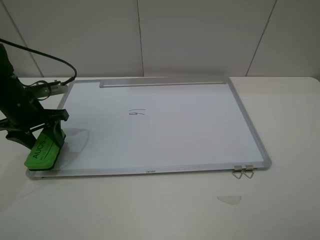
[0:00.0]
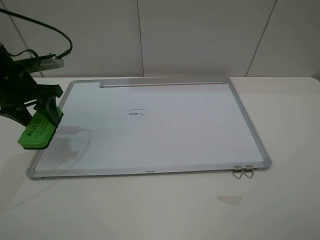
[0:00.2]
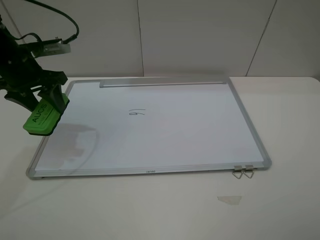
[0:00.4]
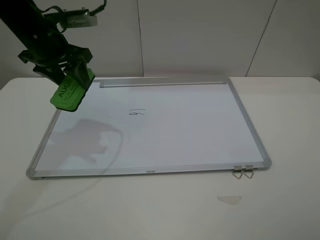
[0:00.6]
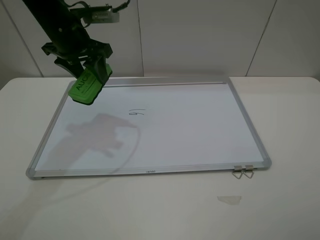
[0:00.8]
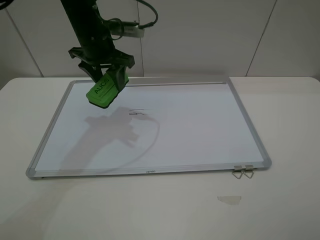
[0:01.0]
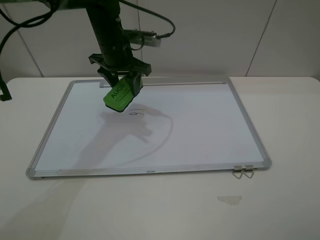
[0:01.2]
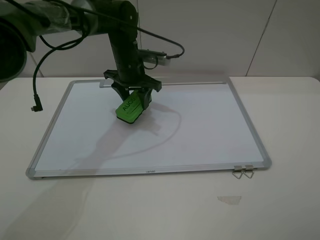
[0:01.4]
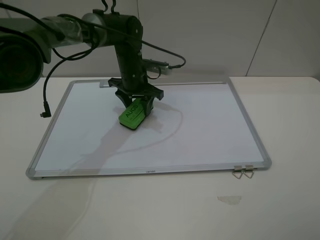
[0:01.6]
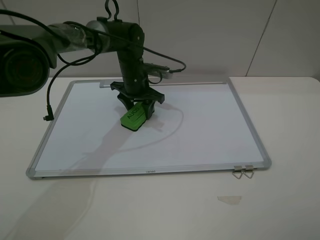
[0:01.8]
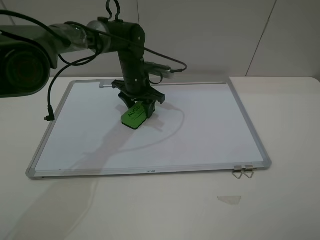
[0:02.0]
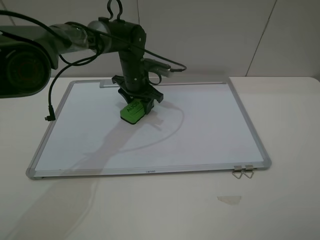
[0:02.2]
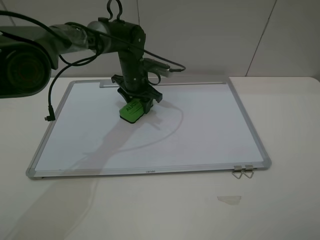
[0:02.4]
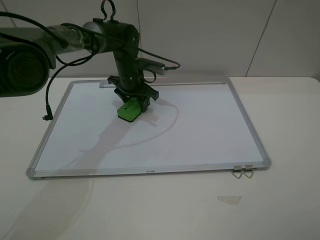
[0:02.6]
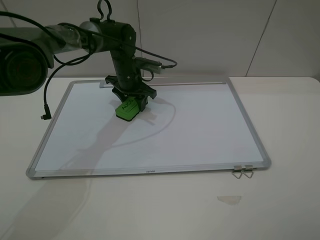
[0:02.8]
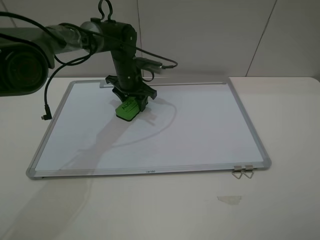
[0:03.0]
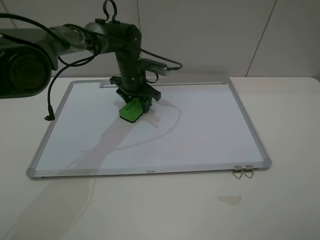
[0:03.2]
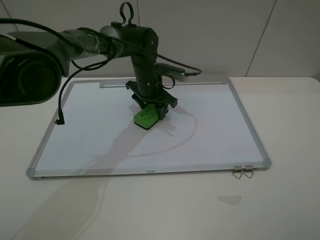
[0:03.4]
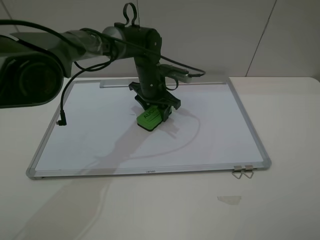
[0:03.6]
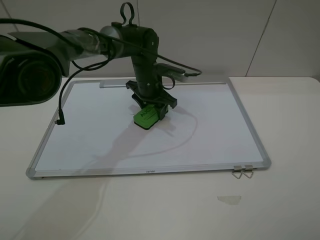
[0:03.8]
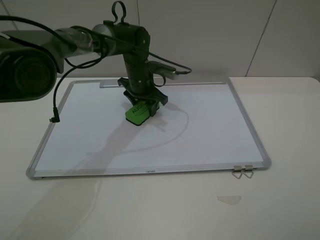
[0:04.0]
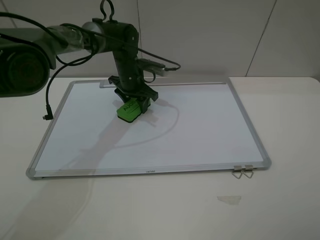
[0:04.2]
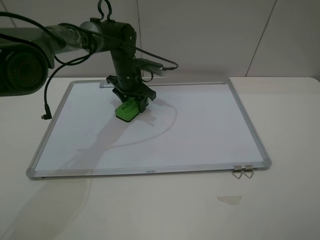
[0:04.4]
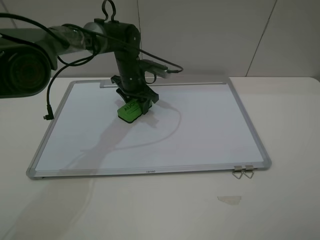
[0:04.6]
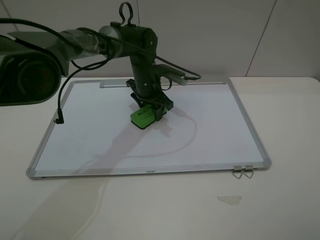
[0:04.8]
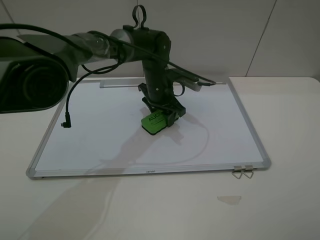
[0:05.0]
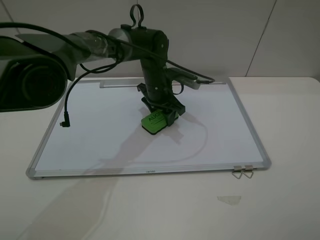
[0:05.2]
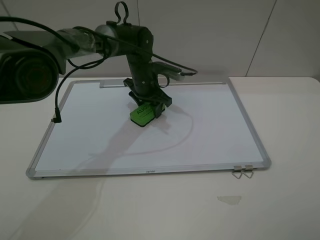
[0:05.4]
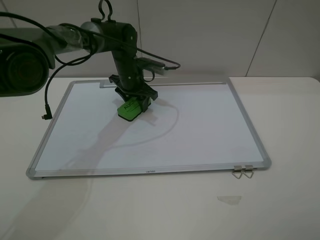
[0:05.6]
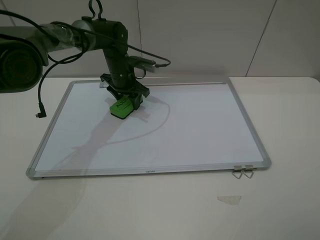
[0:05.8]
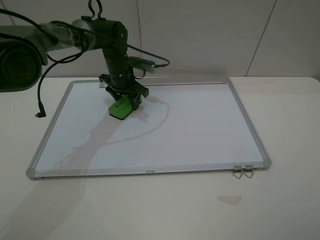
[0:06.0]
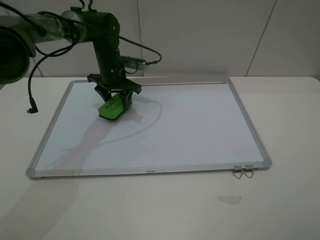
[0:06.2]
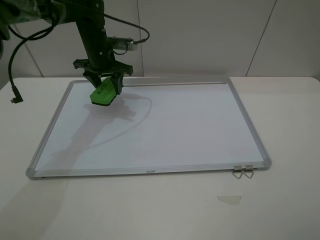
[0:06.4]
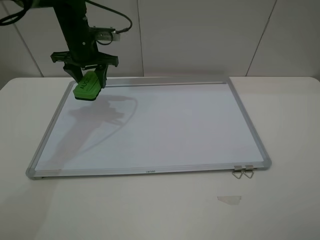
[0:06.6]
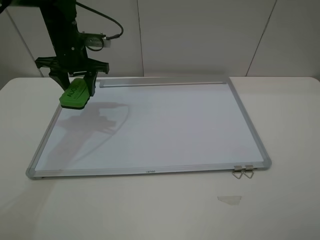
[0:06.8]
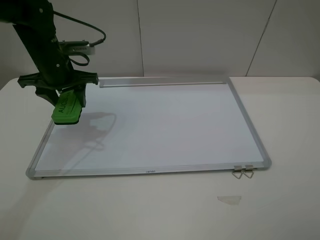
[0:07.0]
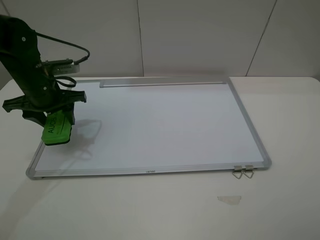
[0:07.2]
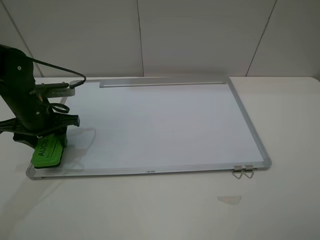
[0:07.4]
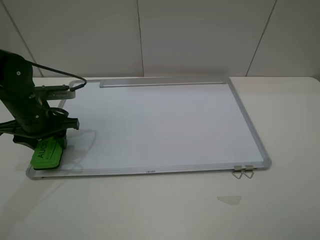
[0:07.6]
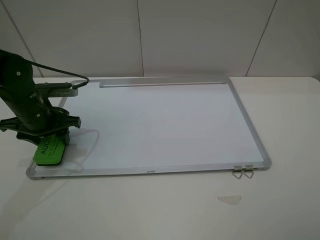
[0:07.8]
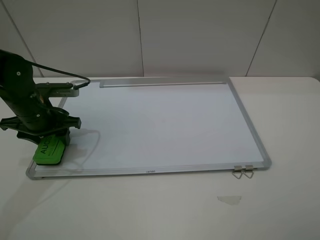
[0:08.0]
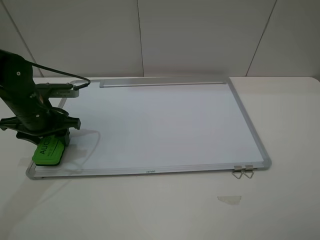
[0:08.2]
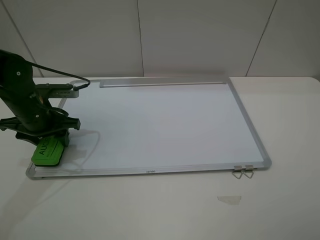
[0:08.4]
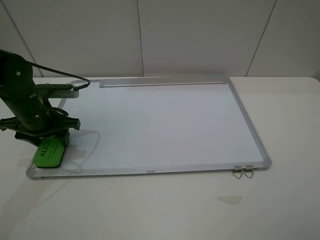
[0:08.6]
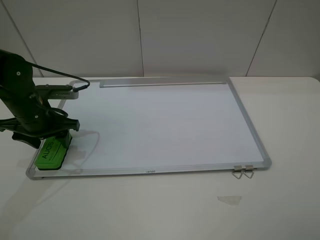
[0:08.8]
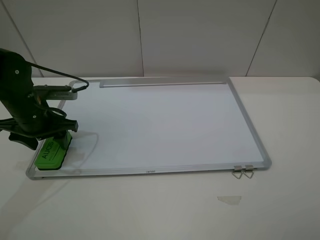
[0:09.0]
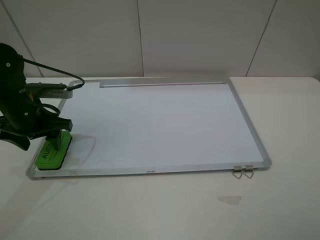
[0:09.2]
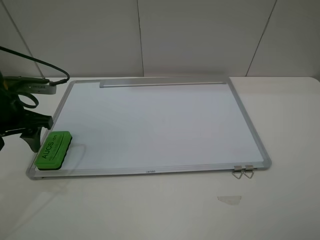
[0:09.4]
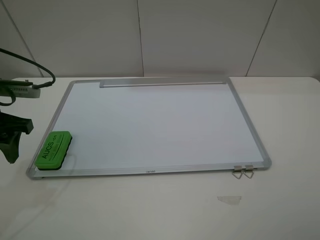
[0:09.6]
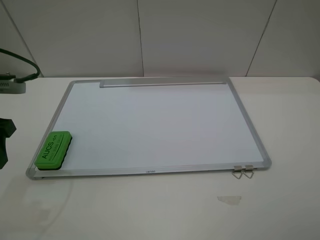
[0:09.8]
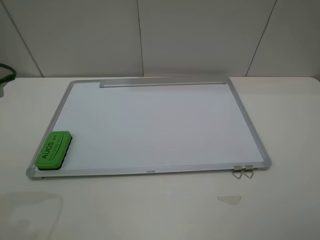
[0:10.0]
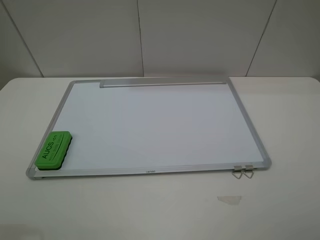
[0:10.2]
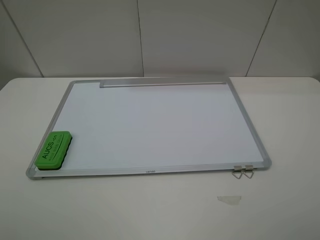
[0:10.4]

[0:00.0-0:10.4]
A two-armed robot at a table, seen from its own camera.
Step, 0:00.0 to 0:06.0: Grasp the eraser and wipe the blackboard with the left gripper.
Step, 0:06.2 to 0:09.0: Place the eraser with the left gripper.
0:00.0 to 0:01.4: The left gripper goes roughly 25 cm to the right and forward.
0:01.4 to 0:03.0: The left gripper shifts by about 5 cm.
0:04.4 to 0:06.0: The left gripper moves some 10 cm to the right and comes back.
0:06.0 to 0:07.4: The left gripper goes about 25 cm backward and to the left.
0:07.4 to 0:09.0: The left gripper opens its fingers.
0:09.0 to 0:10.4: The left gripper heads backward and upward, covering some 25 cm.
